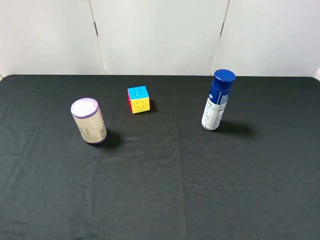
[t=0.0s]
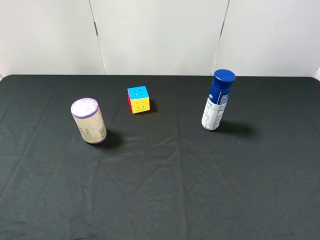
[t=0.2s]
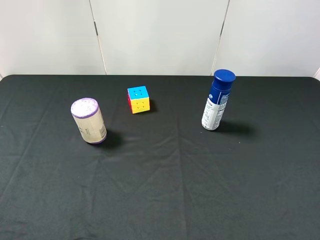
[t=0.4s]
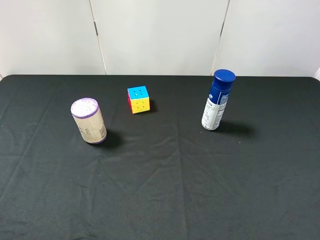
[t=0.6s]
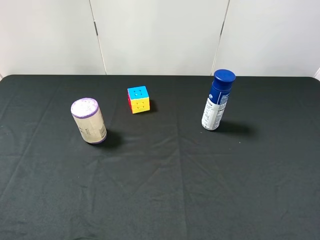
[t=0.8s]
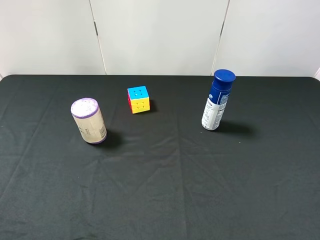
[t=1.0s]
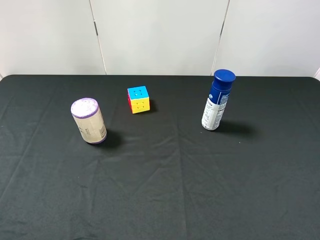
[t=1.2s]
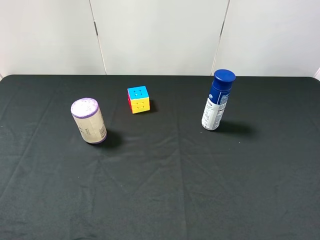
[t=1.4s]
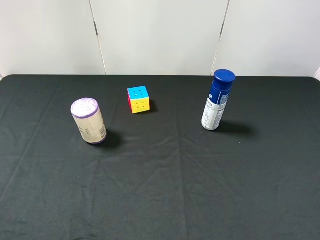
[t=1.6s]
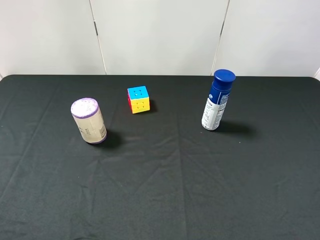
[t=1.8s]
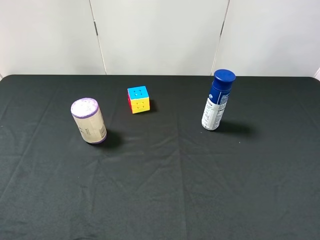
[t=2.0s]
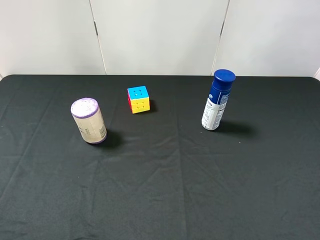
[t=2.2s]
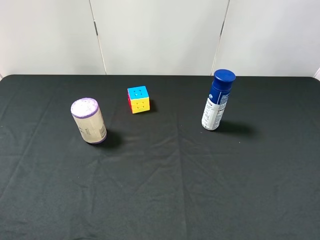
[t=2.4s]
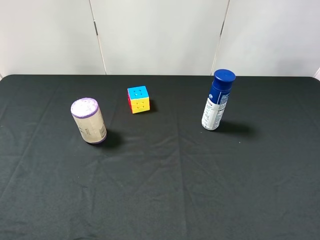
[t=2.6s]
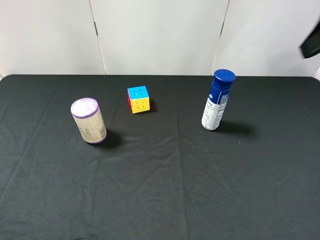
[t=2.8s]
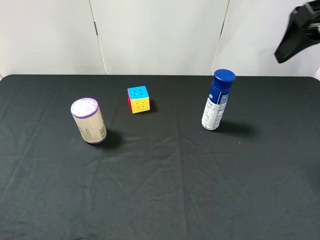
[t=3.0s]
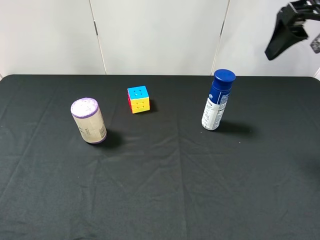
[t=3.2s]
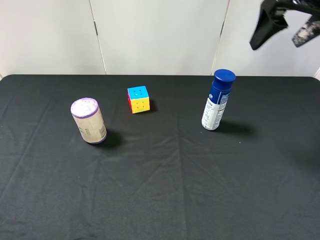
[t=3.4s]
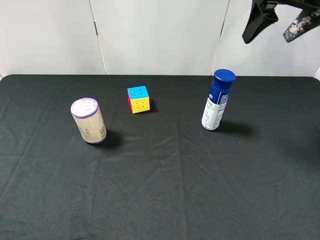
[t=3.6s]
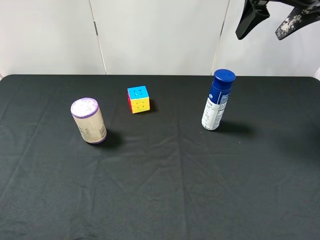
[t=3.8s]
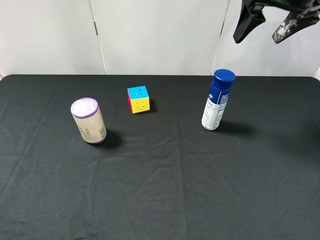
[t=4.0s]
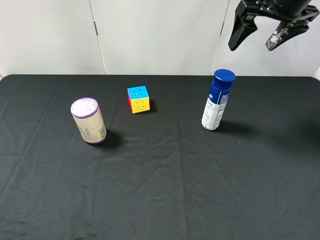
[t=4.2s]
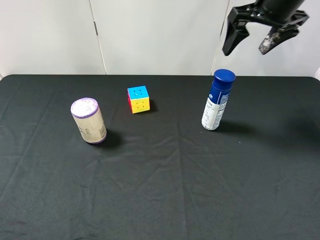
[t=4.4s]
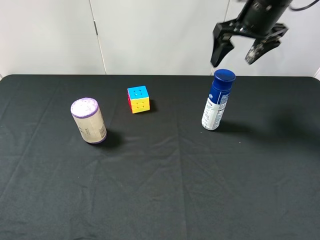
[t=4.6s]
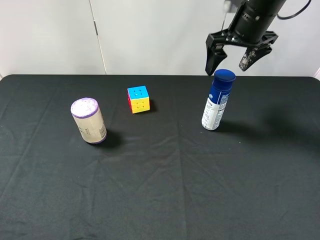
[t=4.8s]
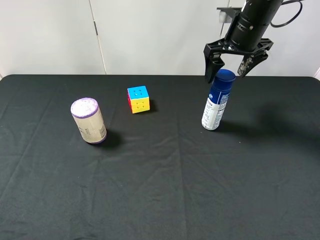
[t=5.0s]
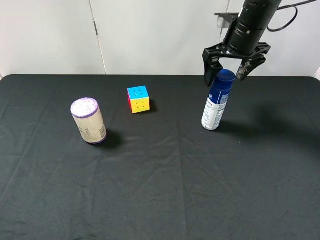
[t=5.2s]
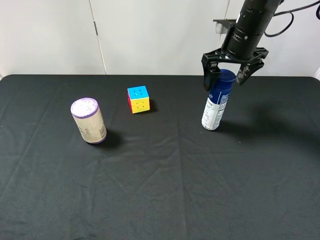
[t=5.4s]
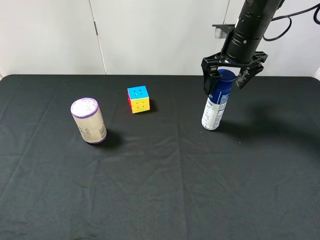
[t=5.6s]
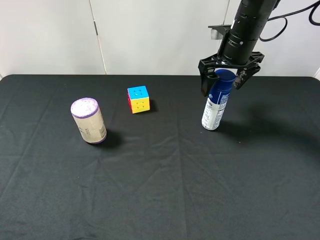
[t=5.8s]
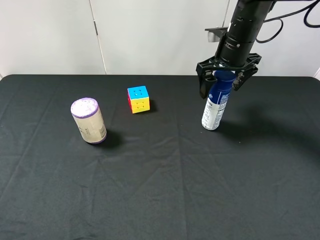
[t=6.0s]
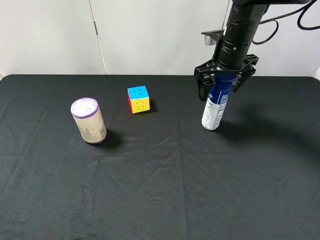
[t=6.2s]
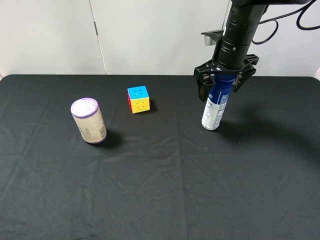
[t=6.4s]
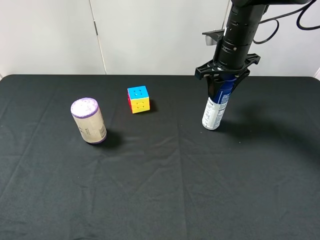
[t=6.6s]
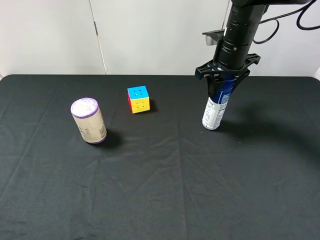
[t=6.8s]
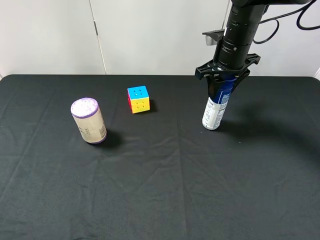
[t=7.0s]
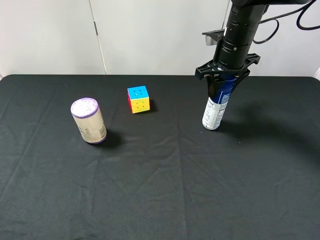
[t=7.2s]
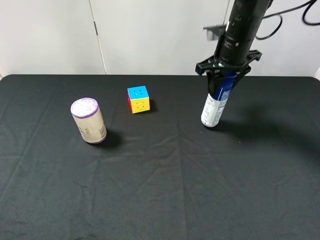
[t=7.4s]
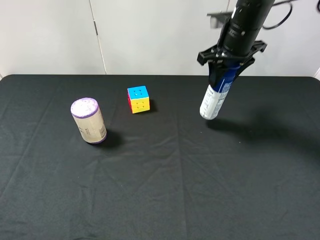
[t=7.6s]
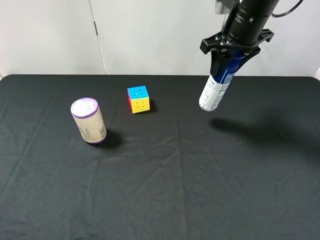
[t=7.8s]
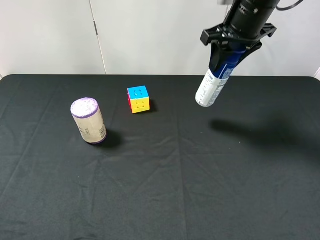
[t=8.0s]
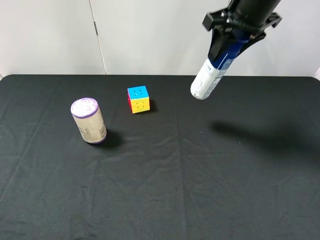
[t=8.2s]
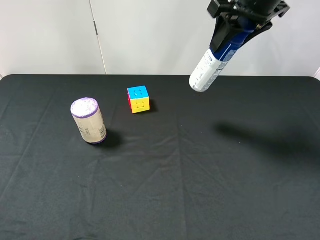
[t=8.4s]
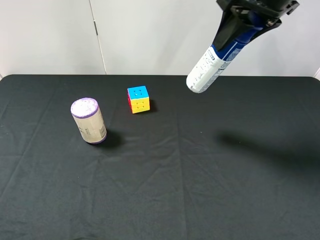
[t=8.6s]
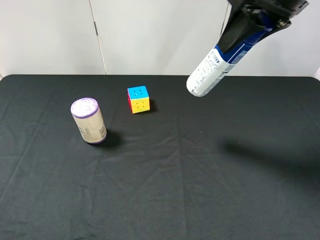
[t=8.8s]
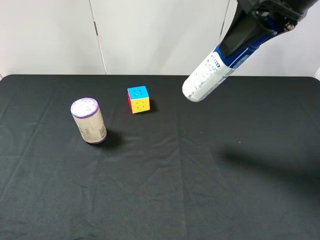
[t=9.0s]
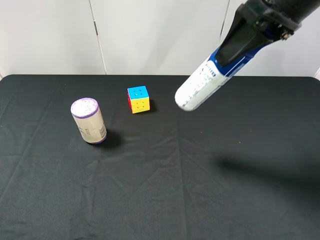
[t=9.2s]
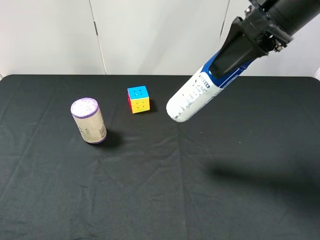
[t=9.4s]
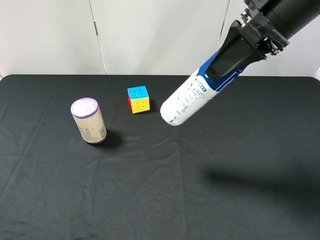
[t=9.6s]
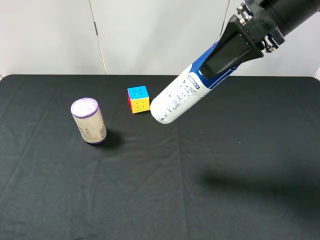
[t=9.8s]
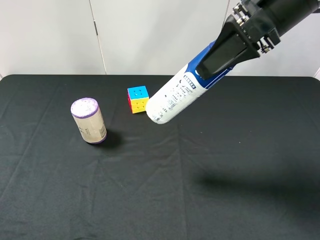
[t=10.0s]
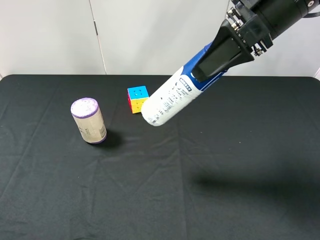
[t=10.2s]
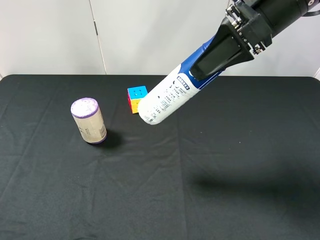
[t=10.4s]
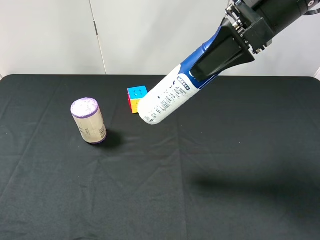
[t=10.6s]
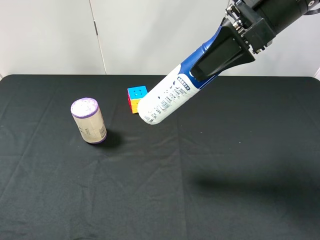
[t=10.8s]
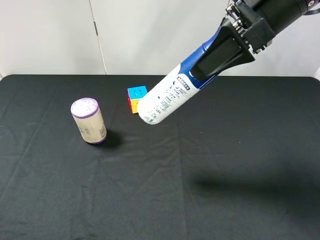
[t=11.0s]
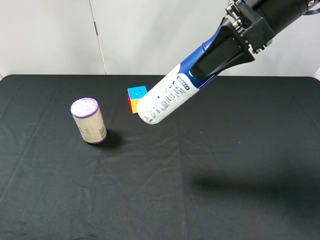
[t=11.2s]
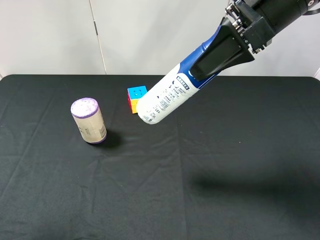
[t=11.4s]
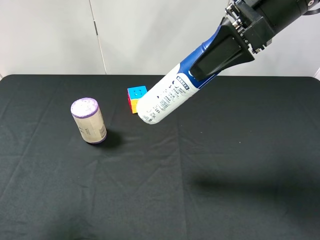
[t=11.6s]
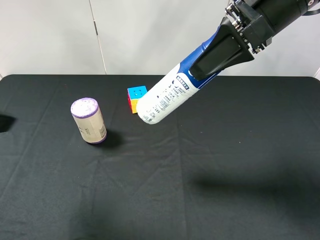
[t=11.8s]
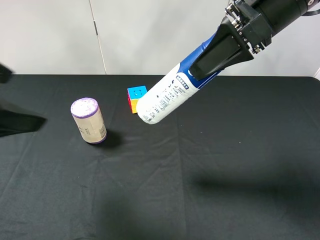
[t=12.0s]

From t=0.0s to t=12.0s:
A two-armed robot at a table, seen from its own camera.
Task of the whole recording: use the right gripper to pick up the item and transfer it from the right gripper to the left gripper.
Step, from t=0.0s to t=6.8s: Use the right gripper to grab the yogurt on the right side of the table.
From t=1.6s to t=3.0s: The right gripper moves forward, roughly 25 cm.
From t=3.0s to t=4.4s: The right gripper moves forward, some 10 cm.
From t=4.4s to t=6.0s: The right gripper goes some 10 cm downward.
From t=6.0s to t=7.6s: The right gripper closes.
From t=7.6s to t=9.0s: The right gripper shifts some 15 cm backward and upward.
From t=10.4s to t=12.0s: The left gripper is displaced forward, to the right and upward by roughly 15 cm.

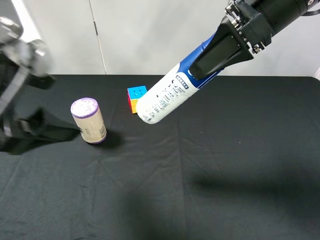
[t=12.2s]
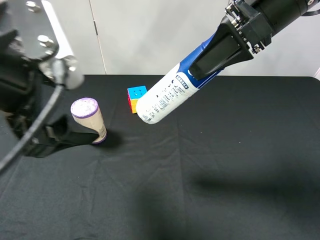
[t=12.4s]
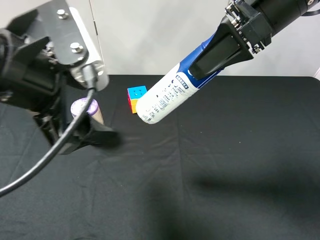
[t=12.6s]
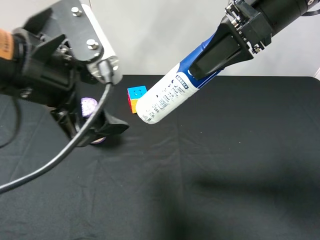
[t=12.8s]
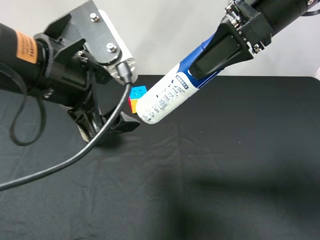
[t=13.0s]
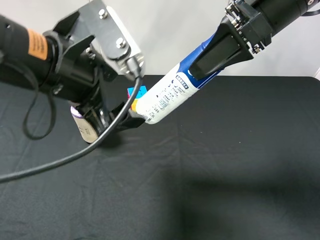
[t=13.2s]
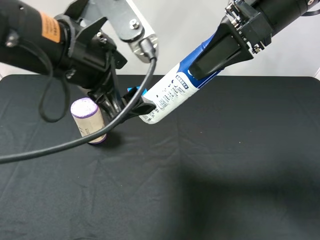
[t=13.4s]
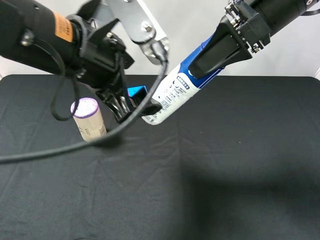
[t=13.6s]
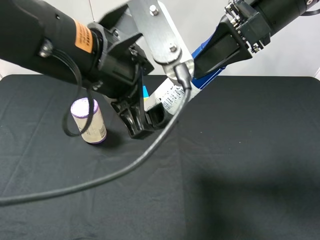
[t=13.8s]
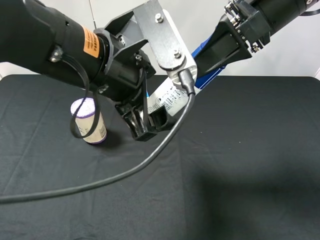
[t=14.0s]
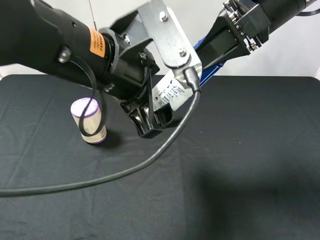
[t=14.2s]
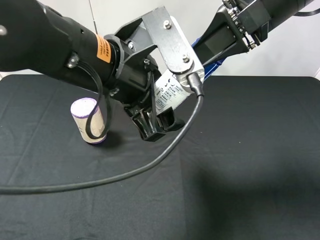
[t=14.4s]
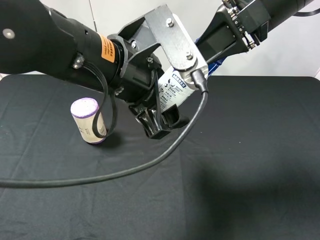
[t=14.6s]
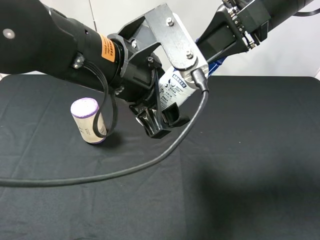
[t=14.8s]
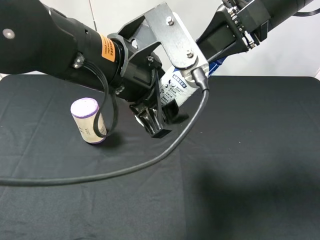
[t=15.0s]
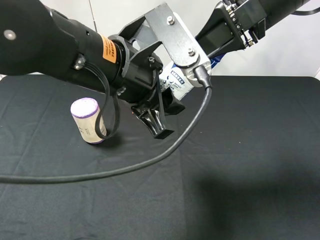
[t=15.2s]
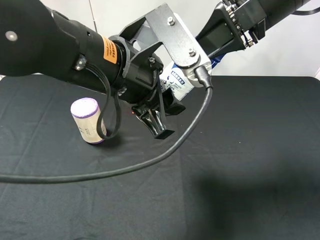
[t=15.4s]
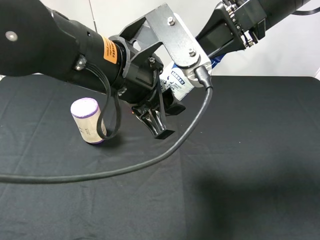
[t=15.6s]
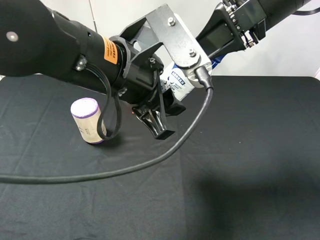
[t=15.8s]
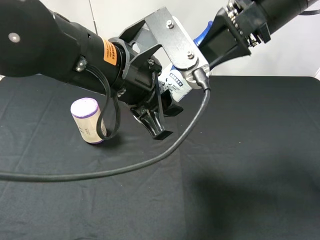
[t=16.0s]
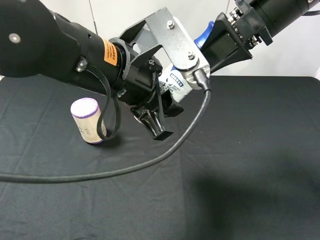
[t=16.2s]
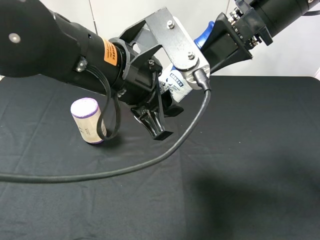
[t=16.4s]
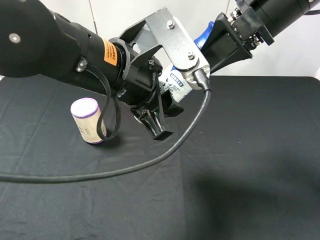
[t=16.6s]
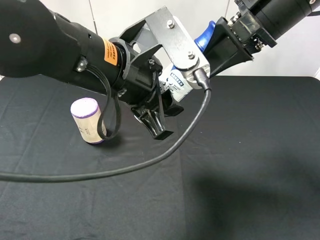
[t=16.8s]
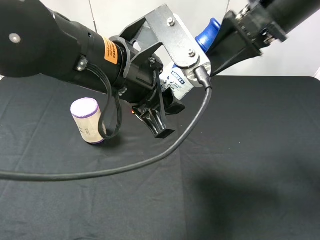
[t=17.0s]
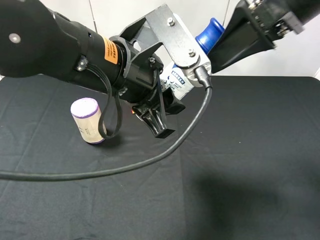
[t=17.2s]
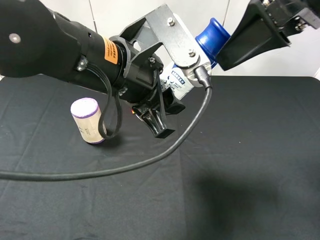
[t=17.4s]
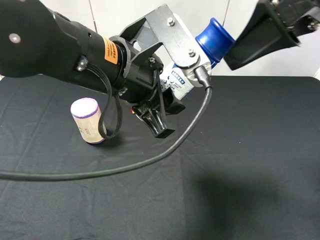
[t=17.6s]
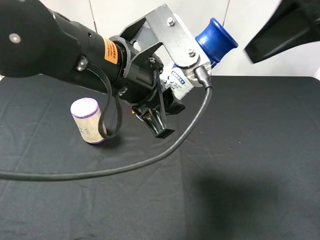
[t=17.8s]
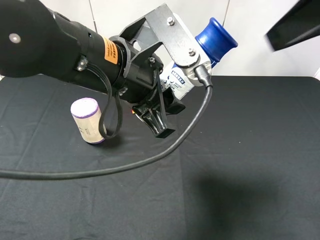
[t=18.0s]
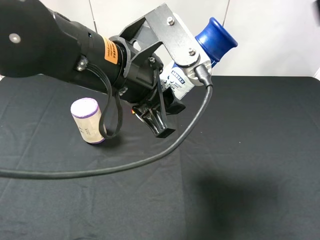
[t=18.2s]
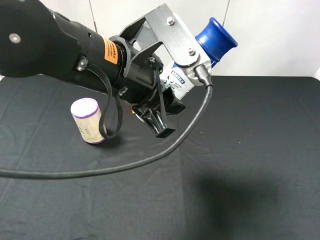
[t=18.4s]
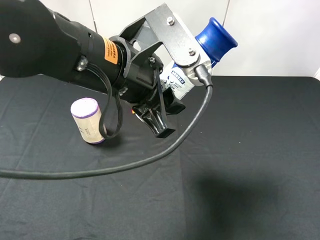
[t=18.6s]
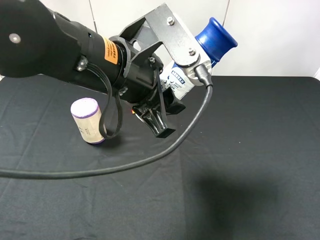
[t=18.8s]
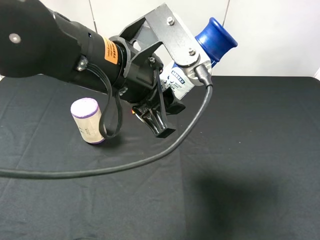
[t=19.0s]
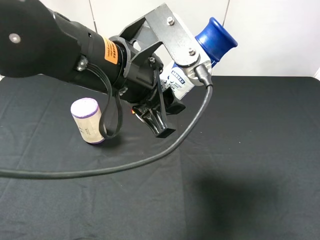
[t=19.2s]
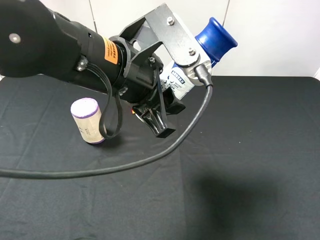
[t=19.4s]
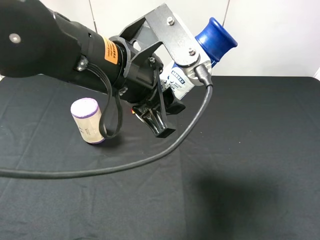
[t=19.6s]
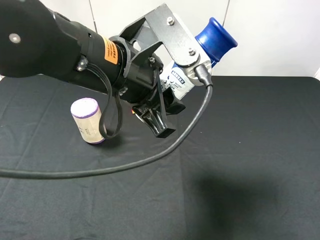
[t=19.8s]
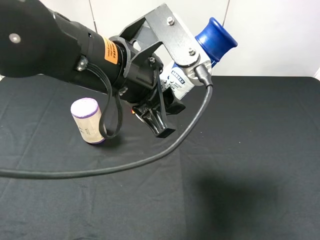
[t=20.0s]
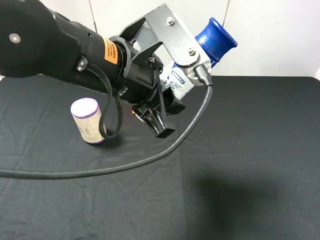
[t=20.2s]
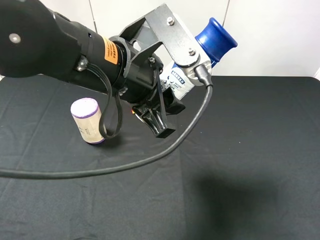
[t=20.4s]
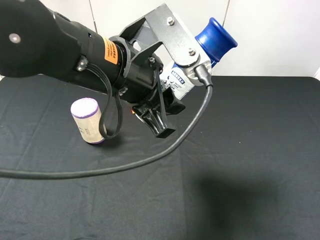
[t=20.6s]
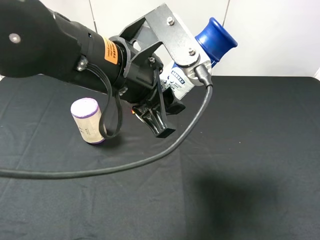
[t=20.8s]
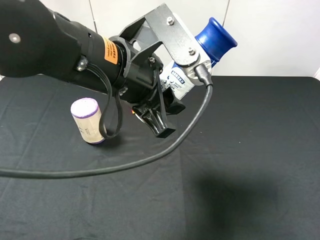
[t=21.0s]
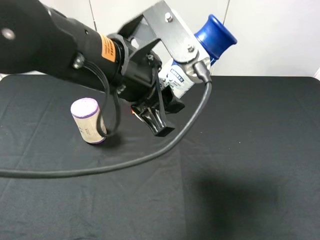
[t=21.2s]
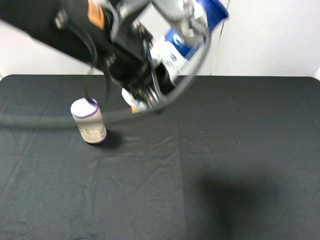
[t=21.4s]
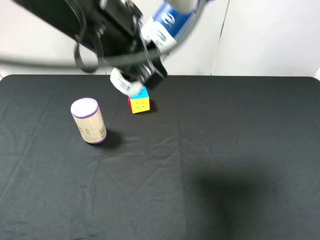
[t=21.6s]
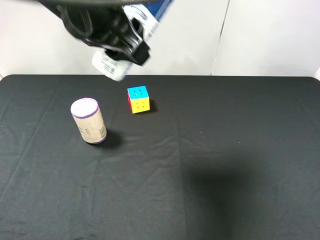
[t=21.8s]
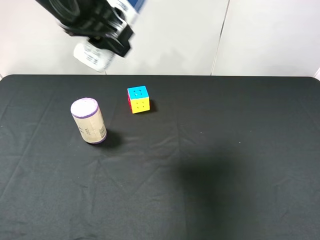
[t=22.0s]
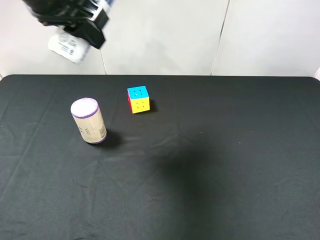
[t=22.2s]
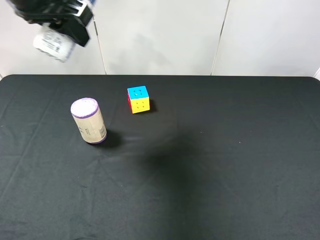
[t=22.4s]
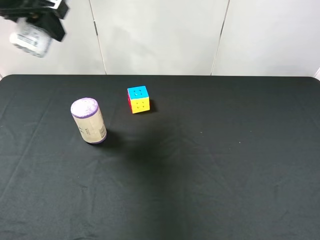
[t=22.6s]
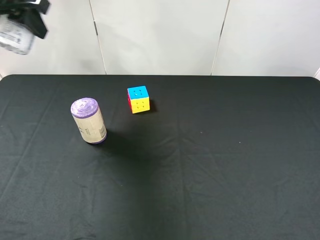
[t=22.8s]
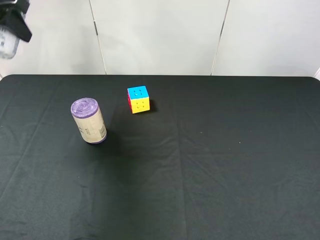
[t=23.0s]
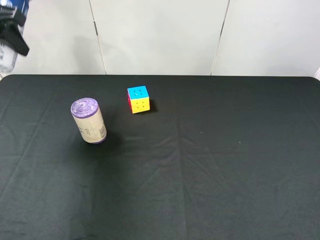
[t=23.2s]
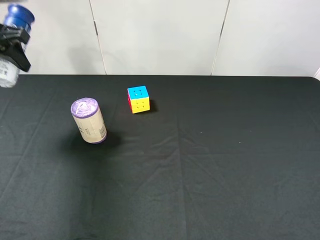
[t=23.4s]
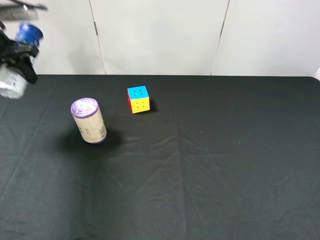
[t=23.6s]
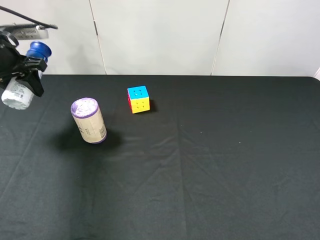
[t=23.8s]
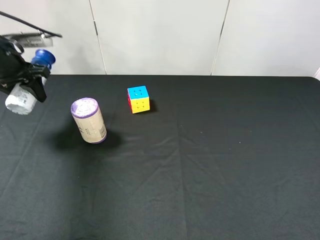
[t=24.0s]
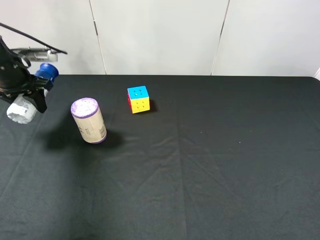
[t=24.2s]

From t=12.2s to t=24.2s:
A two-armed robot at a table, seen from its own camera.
Task of the whole recording: use the right gripper to pick up the item and transfer it from the right gripper to the left gripper.
Step, from t=12.2s to t=16.4s: Pass the yogurt to the left gripper.
From t=12.2s to t=13.8s: The left gripper shifts some 10 cm to the right.
From t=13.8s to t=15.2s: The left gripper closes up.
From t=15.2s to t=16.6s: The right gripper opens its fingers.
From t=16.6s to t=18.2s: The right gripper moves backward, upward and to the right, approximately 20 cm.
From t=21.2s to t=22.6s: The left gripper moves to the left, forward and upward, some 20 cm.
From t=22.6s to t=24.2s: The left gripper is displaced downward and to the left by some 20 cm.
